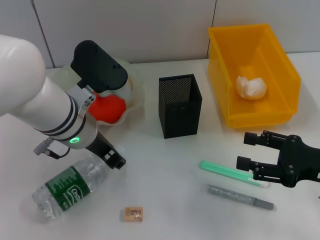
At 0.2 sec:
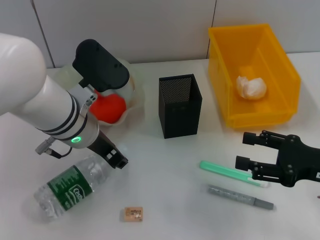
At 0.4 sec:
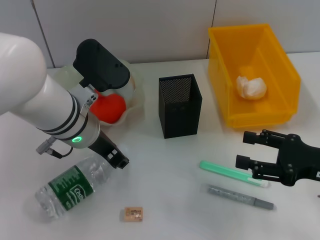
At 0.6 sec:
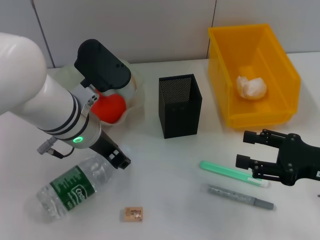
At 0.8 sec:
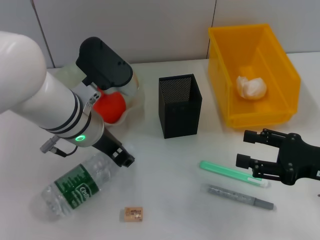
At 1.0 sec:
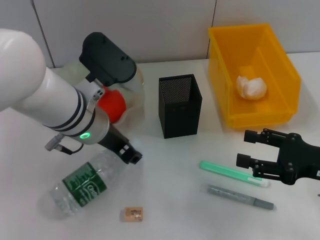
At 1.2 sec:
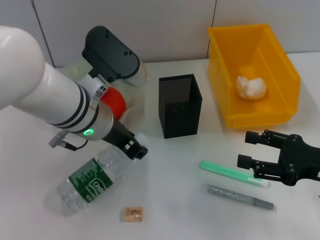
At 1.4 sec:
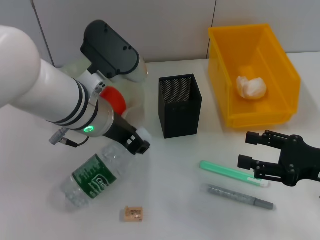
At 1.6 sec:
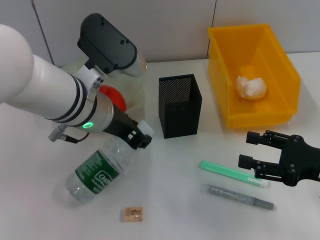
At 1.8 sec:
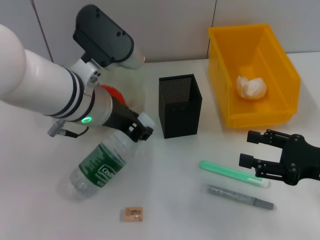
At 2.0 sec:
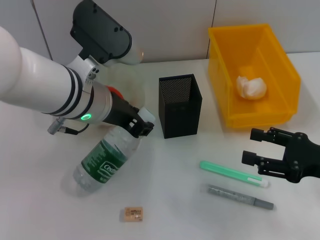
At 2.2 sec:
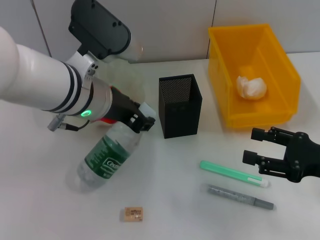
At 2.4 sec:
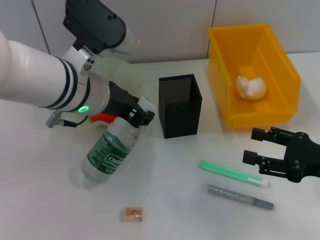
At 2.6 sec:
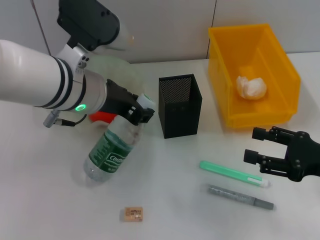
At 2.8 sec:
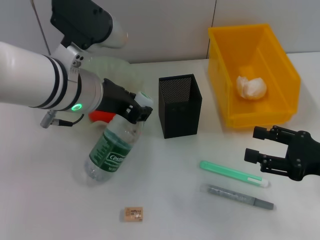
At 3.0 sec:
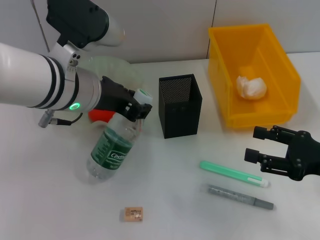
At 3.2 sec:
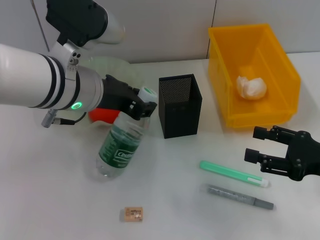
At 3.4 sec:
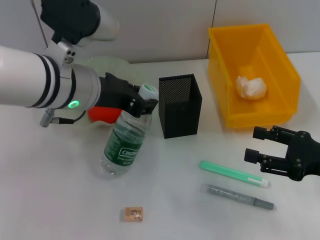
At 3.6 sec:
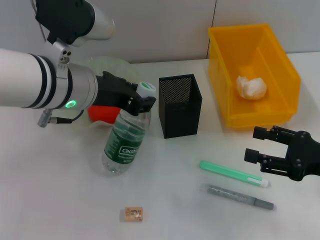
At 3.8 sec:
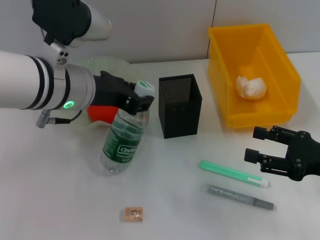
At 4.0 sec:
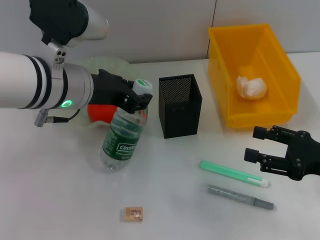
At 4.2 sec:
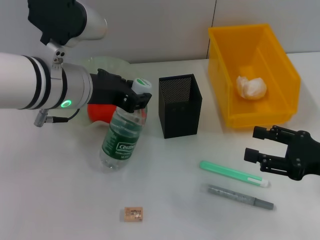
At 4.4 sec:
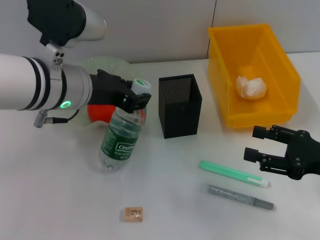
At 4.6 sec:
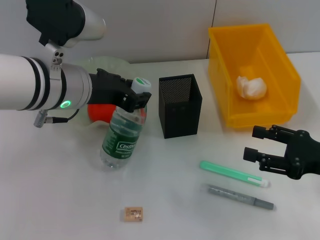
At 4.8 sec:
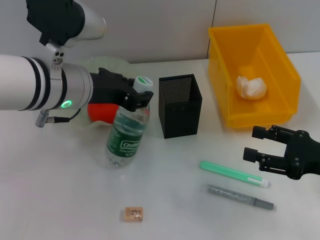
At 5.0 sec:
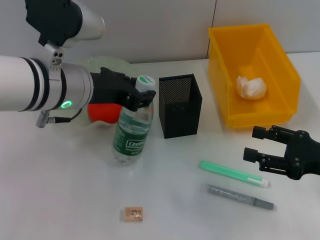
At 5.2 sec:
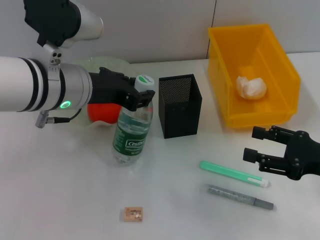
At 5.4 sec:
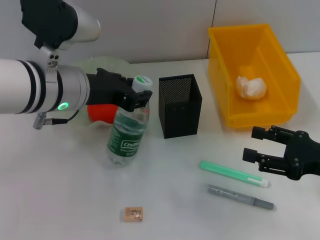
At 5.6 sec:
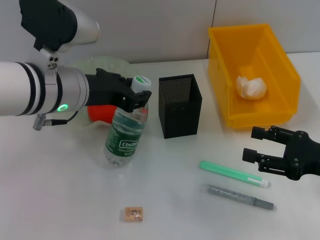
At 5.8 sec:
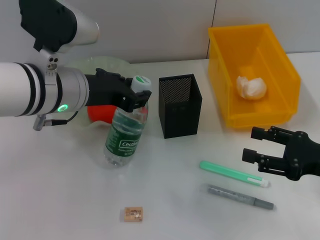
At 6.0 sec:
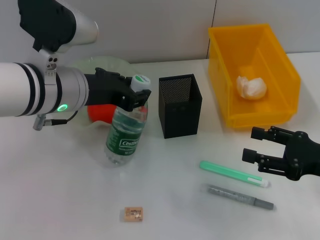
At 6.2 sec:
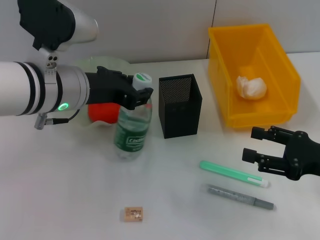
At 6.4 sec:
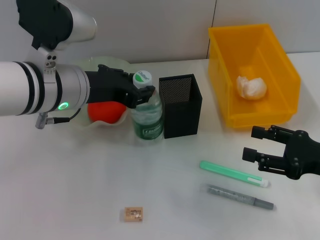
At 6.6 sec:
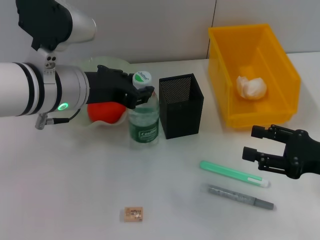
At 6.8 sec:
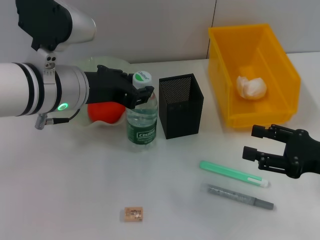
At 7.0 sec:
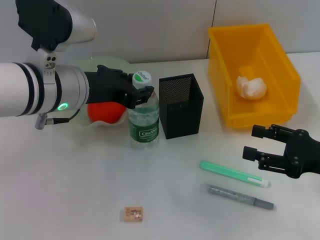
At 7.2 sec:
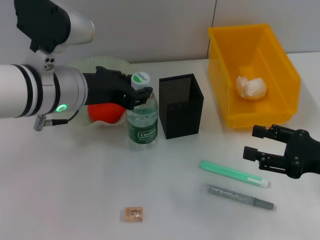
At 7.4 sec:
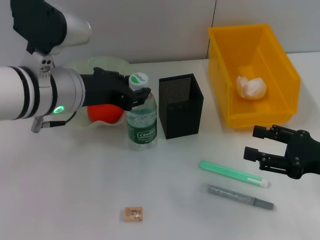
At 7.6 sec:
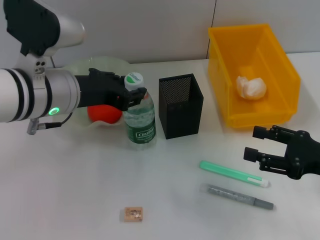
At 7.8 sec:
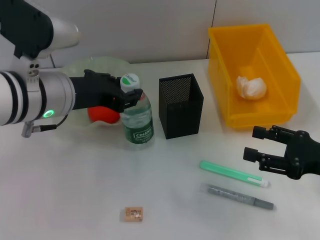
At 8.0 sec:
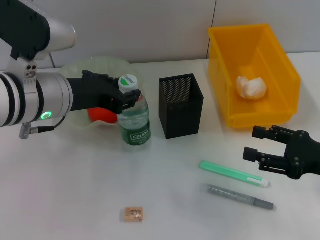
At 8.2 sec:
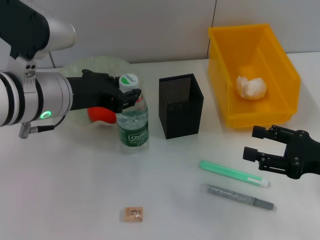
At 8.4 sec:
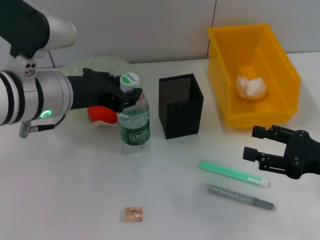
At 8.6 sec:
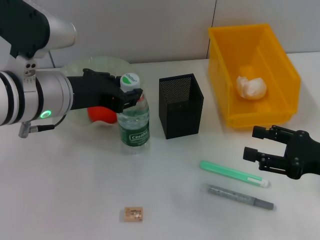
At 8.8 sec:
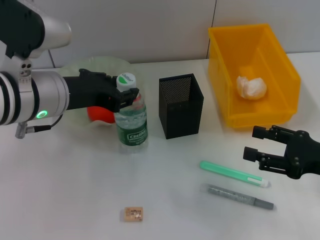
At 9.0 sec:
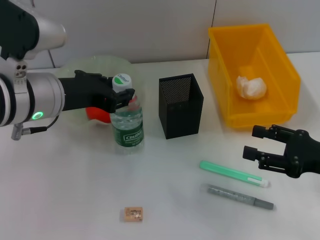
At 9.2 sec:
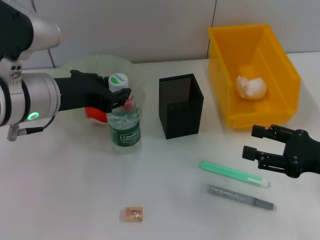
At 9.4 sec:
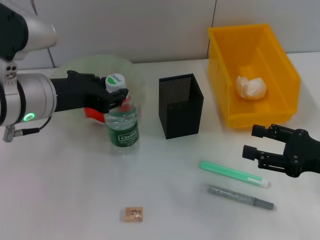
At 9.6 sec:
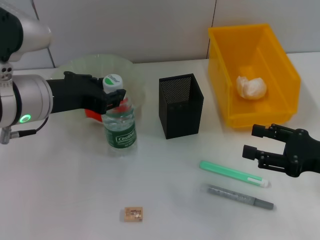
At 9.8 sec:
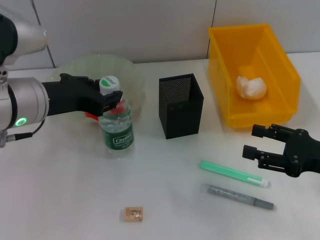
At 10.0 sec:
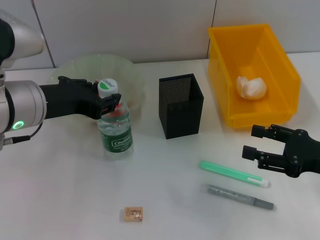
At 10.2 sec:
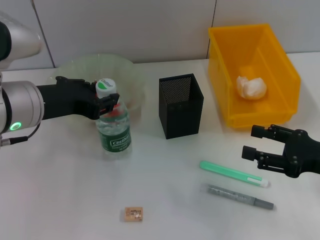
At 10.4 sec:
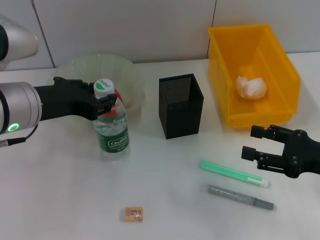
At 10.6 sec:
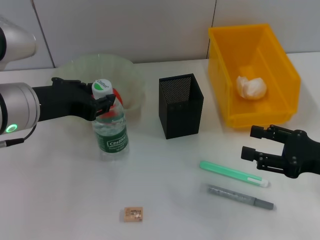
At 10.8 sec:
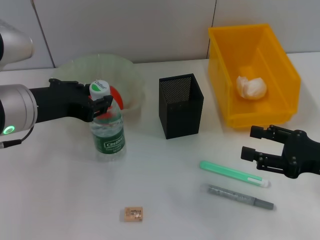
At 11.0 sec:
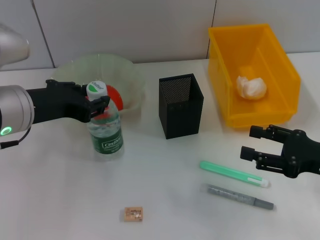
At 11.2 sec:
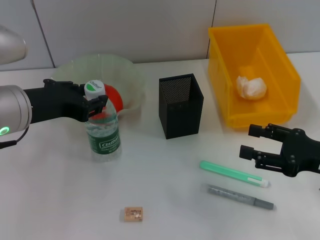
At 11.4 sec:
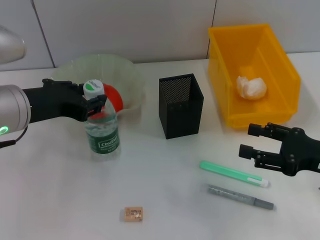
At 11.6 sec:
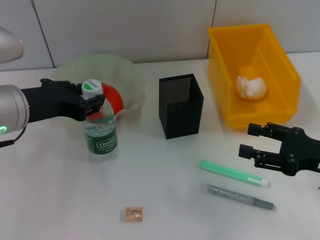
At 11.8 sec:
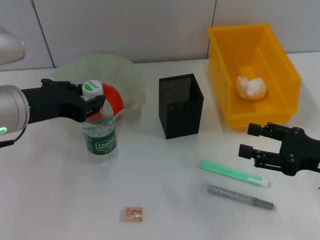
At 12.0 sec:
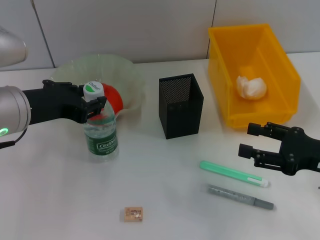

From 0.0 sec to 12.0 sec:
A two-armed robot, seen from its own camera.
From 0.0 sec to 1.6 sec: The grippers stay close to where they were, moving slightly.
From 1.6 sec to 4.4 sec: There are only small adjustments of the grippers.
From 4.4 sec to 6.0 sec: Both grippers stay put.
From 6.0 sec to 7.6 sec: Both grippers stay put.
From 7.6 sec to 10.4 sec: The grippers make only small movements.
From 10.4 sec to 12.0 sec: Neither gripper changes place.

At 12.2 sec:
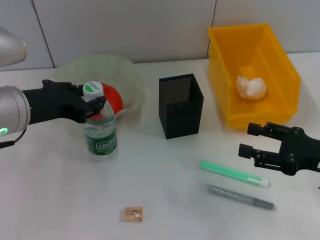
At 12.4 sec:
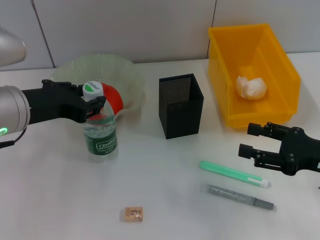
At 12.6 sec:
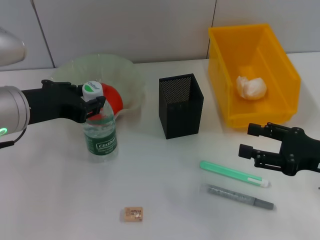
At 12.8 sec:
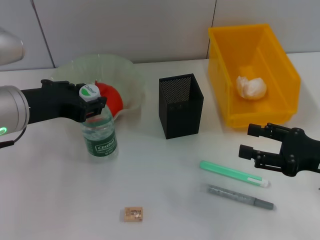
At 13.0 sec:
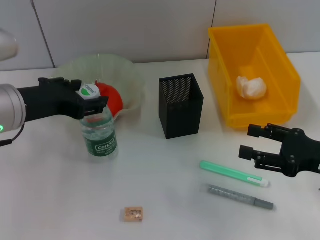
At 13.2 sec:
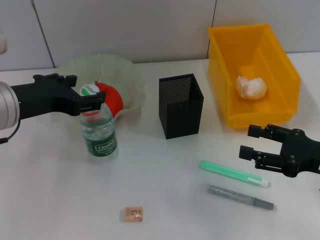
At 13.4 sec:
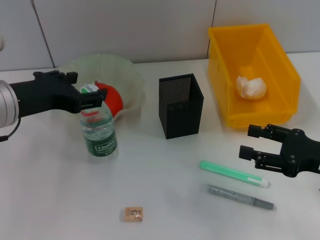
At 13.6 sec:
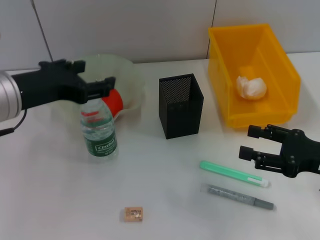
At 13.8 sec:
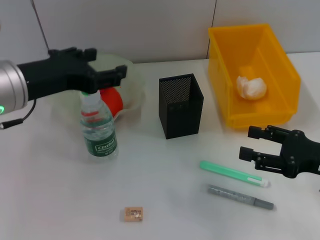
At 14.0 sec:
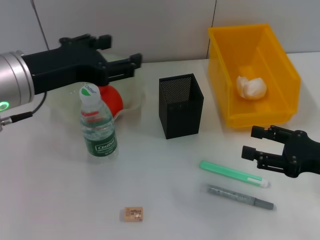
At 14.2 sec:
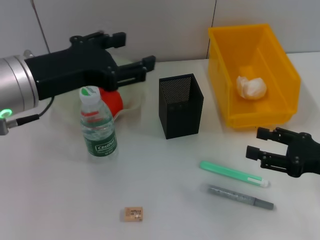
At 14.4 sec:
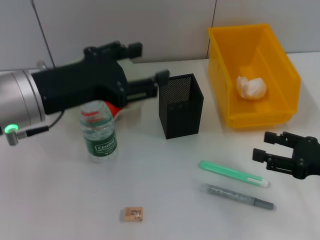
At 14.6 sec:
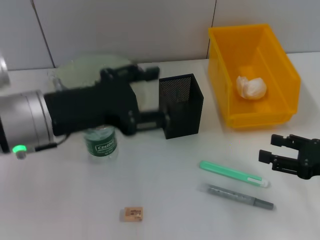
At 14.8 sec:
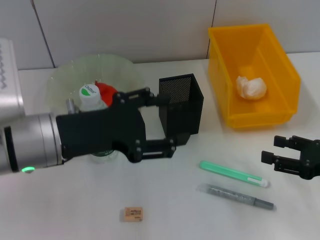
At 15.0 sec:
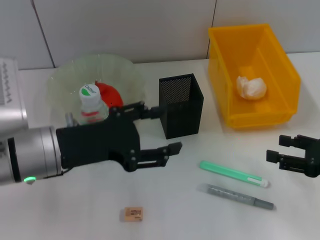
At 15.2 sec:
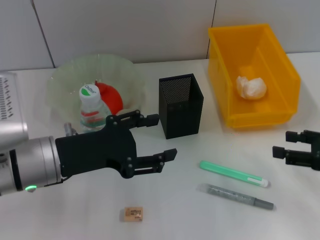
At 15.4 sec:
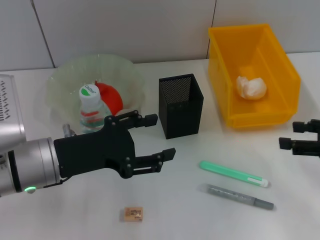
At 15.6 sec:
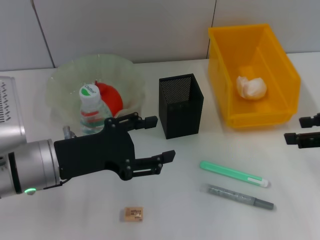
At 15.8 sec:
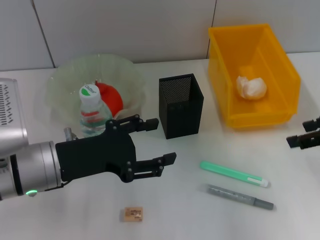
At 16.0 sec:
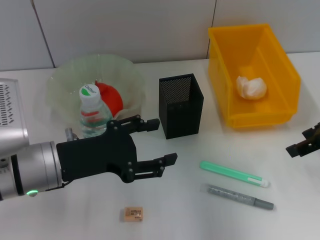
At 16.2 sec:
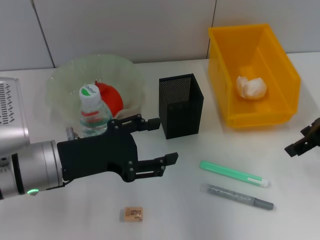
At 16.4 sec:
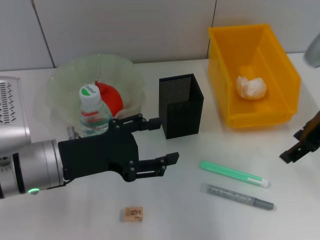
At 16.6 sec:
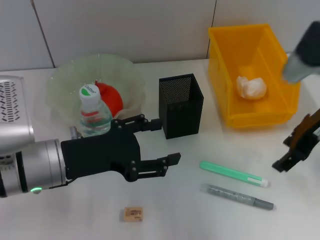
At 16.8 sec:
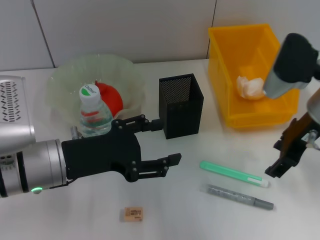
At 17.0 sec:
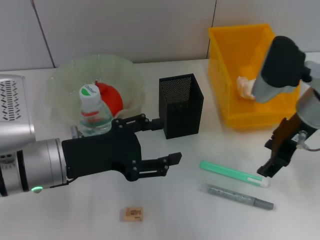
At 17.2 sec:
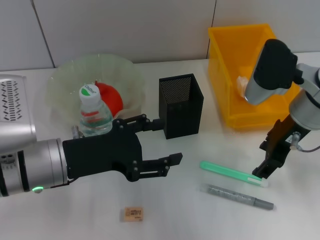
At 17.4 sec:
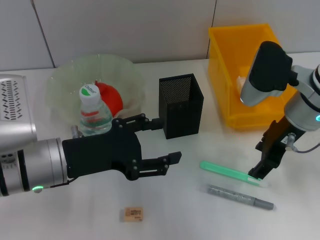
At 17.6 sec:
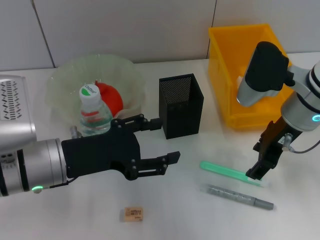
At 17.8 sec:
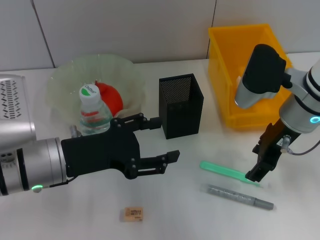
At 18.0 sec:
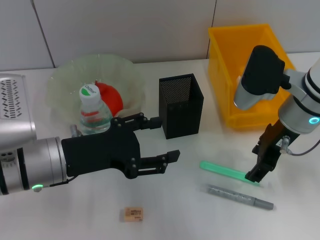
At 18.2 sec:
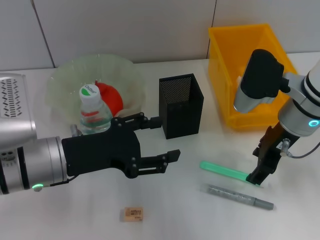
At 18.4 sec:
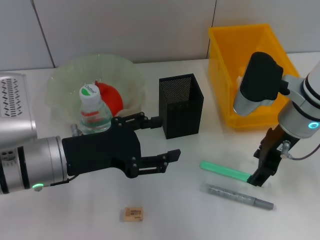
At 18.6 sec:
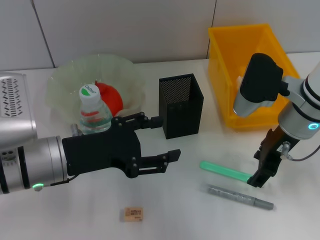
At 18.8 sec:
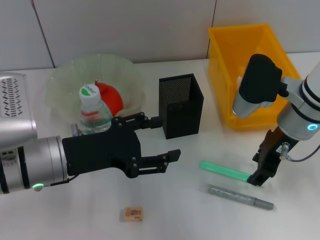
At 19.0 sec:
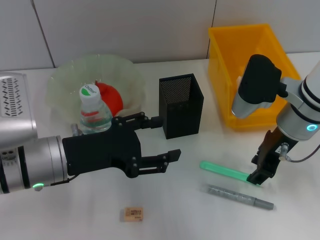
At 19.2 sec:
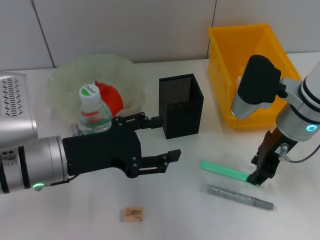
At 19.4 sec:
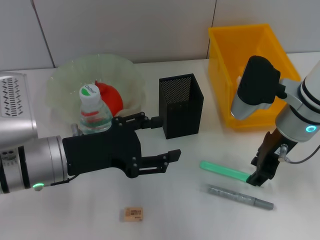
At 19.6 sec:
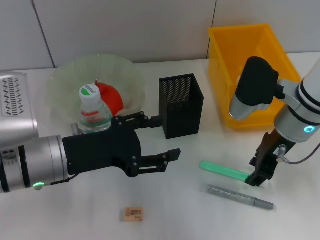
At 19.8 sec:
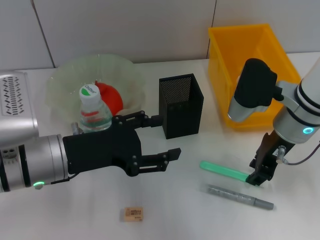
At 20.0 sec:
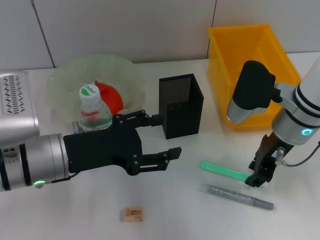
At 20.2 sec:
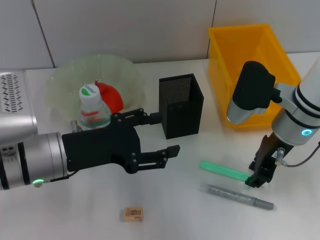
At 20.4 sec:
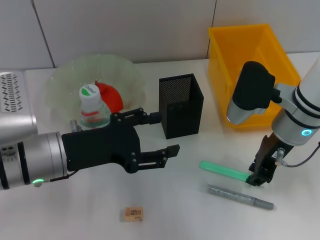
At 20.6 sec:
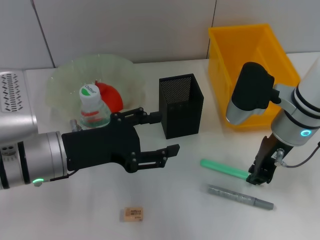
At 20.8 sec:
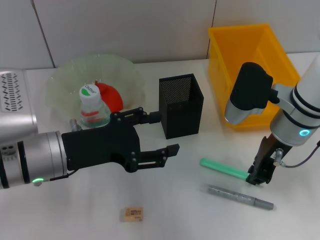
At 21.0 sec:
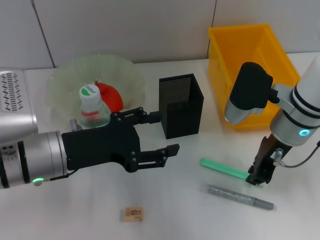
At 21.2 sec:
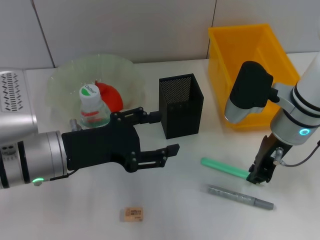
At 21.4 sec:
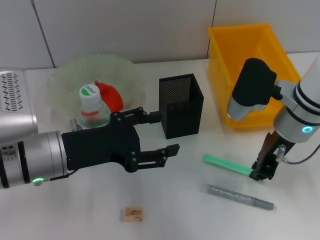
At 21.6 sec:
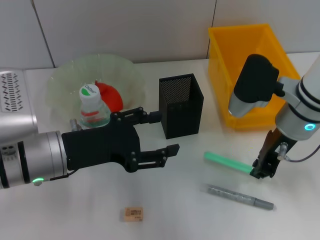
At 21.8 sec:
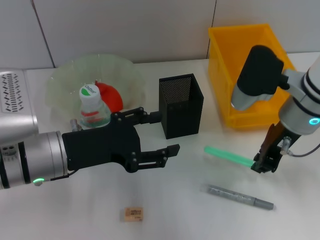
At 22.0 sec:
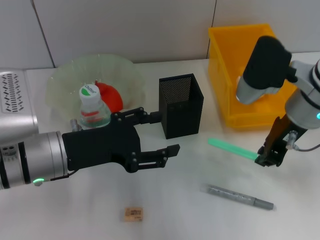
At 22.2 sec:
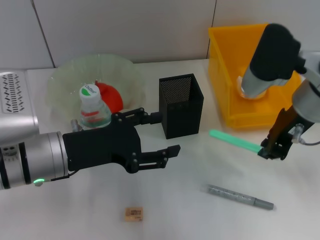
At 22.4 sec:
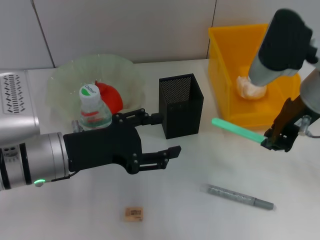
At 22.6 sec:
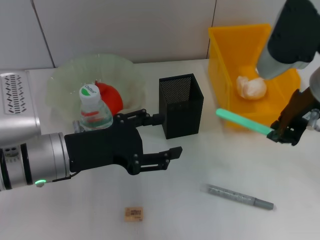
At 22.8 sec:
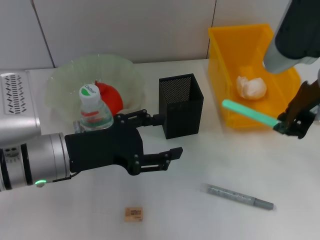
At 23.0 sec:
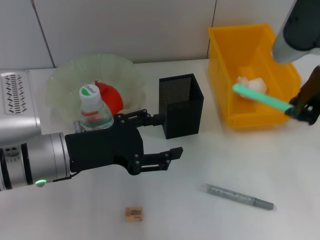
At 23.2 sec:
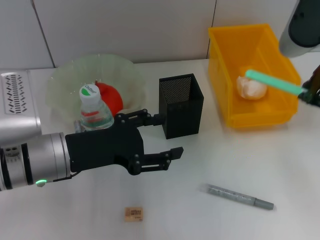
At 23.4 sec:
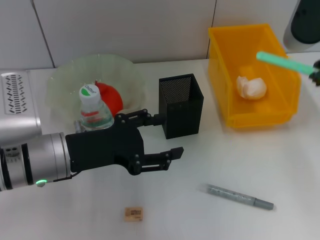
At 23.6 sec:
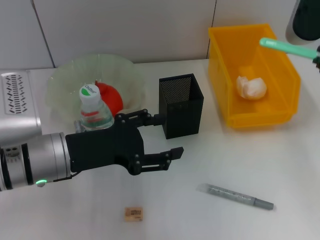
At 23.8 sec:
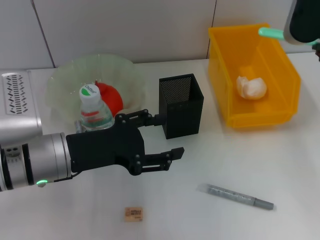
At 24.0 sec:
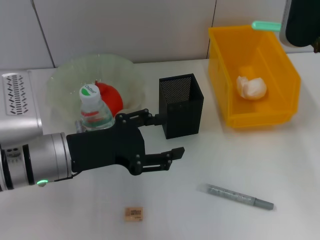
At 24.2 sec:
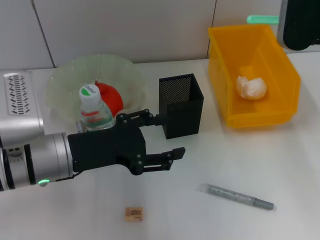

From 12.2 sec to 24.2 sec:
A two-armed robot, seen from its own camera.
Step, from 13.6 sec to 20.4 sec: Grab the blue utility knife with the right hand.
From 12.2 sec to 13.8 sec: The left gripper opens.
From 13.8 sec to 15.2 sec: The left gripper goes approximately 10 cm downward.
From 15.2 sec to 16.6 sec: The right gripper moves to the left, forward and upward, roughly 15 cm.
From 16.6 sec to 18.2 sec: The right gripper is displaced to the left by about 5 cm.
From 18.2 sec to 19.8 sec: The right gripper closes its fingers.
From 19.8 sec to 21.2 sec: The right gripper closes up.
From 21.2 sec to 22.6 sec: The right gripper moves upward, some 10 cm.
From 22.6 sec to 24.2 sec: The right gripper shifts approximately 5 cm forward.
